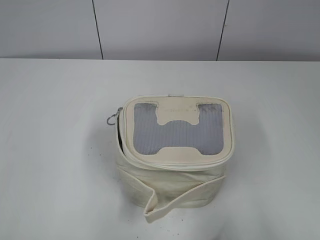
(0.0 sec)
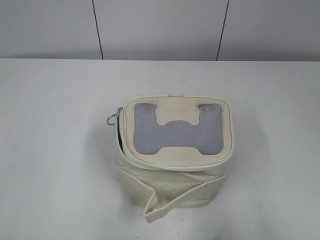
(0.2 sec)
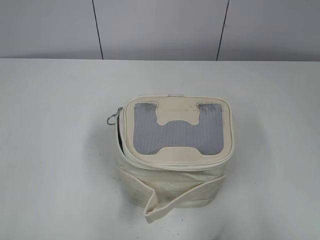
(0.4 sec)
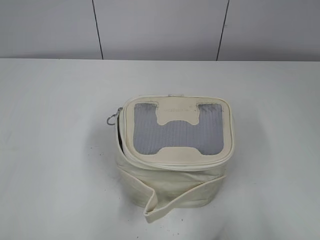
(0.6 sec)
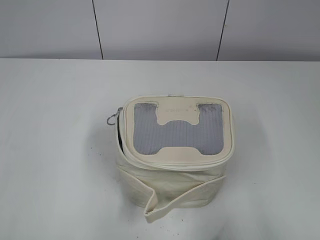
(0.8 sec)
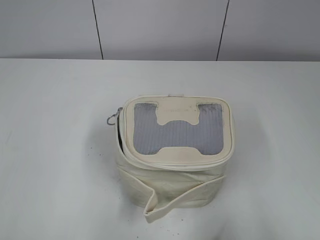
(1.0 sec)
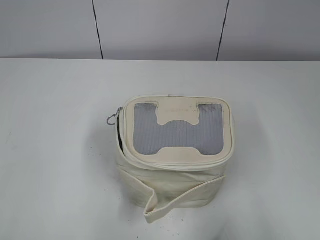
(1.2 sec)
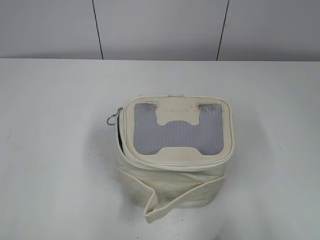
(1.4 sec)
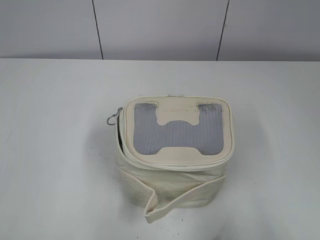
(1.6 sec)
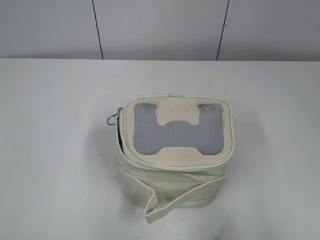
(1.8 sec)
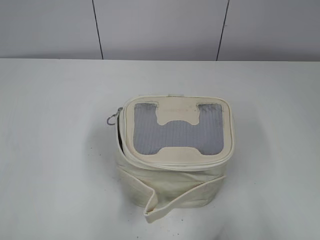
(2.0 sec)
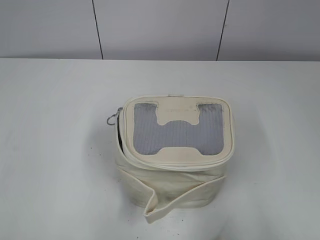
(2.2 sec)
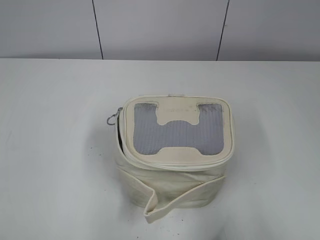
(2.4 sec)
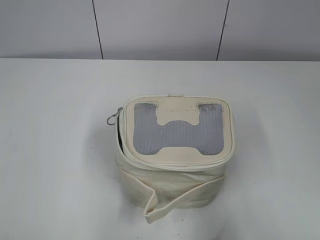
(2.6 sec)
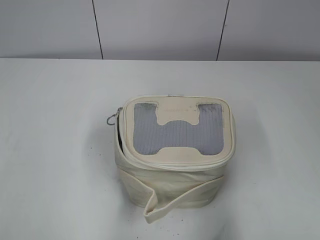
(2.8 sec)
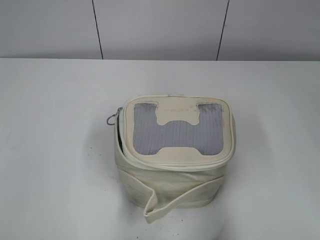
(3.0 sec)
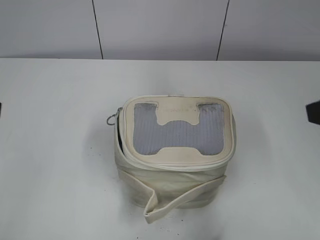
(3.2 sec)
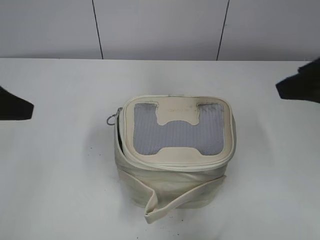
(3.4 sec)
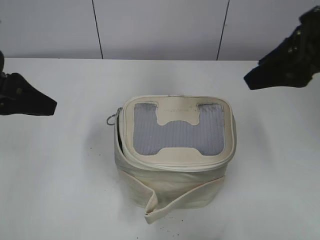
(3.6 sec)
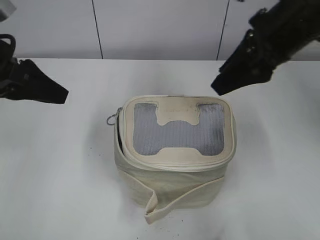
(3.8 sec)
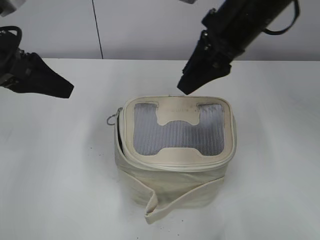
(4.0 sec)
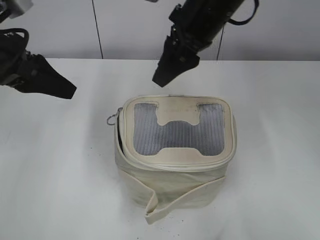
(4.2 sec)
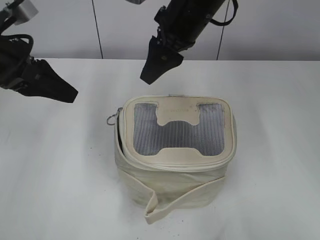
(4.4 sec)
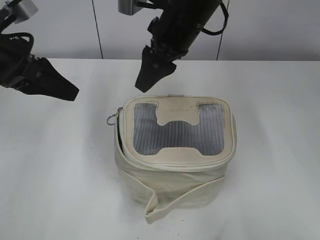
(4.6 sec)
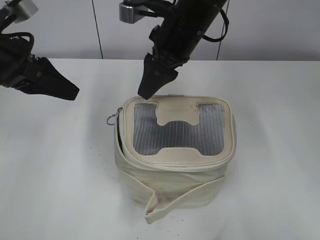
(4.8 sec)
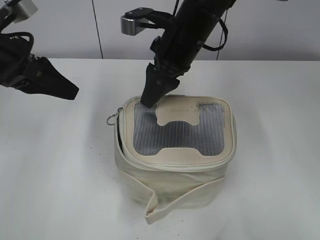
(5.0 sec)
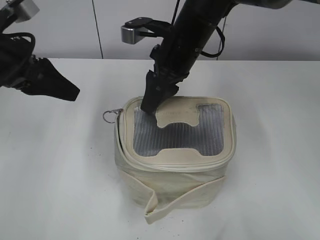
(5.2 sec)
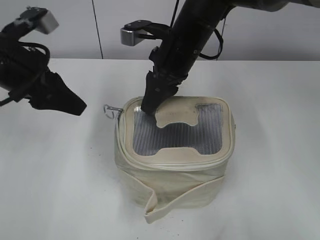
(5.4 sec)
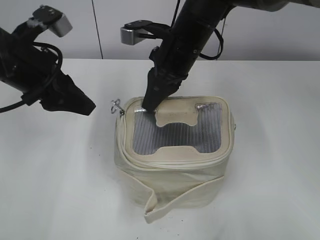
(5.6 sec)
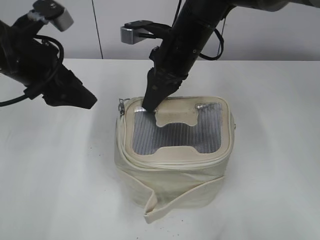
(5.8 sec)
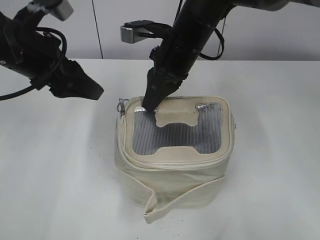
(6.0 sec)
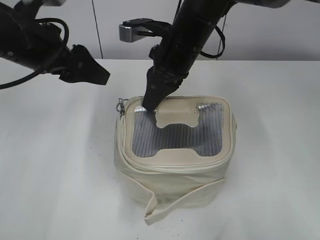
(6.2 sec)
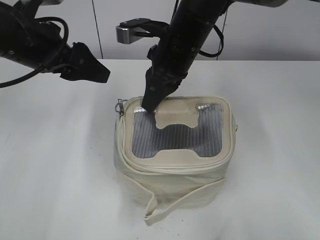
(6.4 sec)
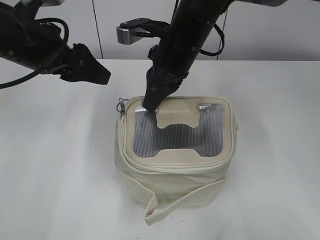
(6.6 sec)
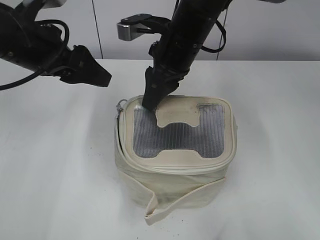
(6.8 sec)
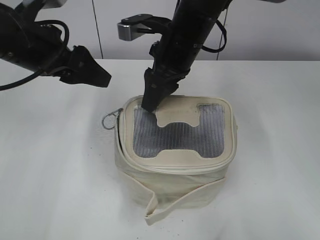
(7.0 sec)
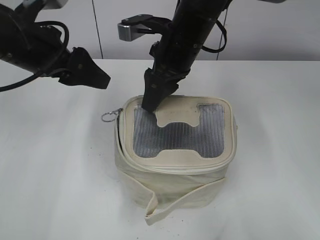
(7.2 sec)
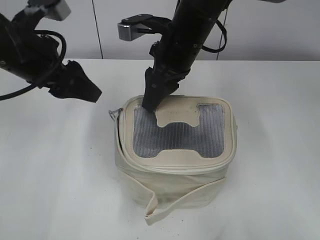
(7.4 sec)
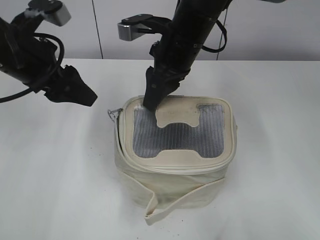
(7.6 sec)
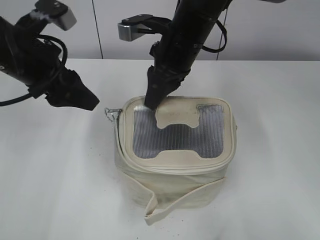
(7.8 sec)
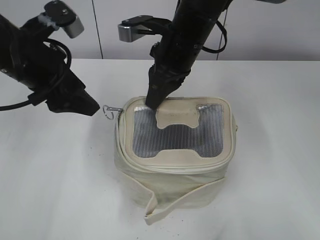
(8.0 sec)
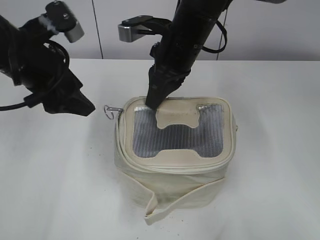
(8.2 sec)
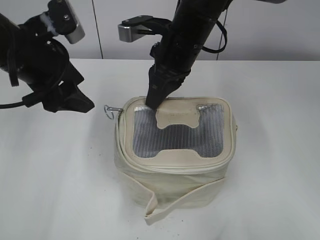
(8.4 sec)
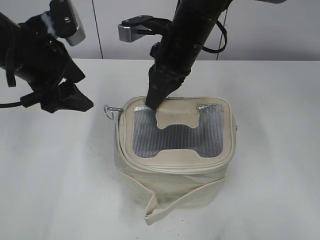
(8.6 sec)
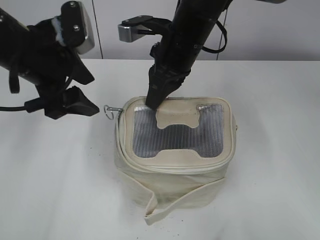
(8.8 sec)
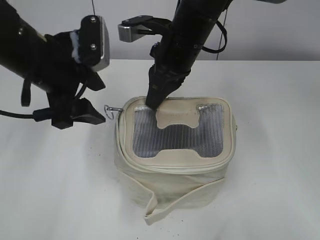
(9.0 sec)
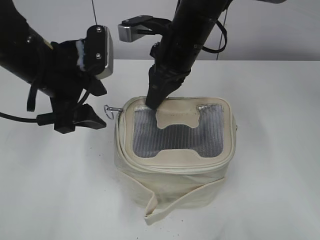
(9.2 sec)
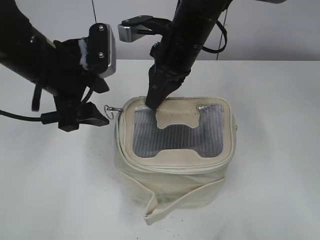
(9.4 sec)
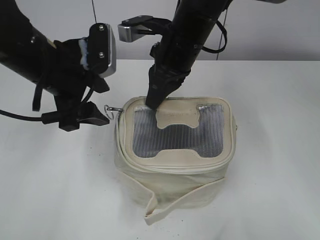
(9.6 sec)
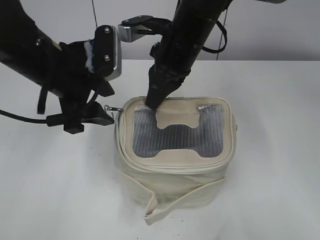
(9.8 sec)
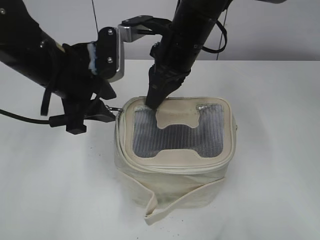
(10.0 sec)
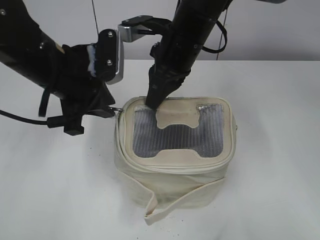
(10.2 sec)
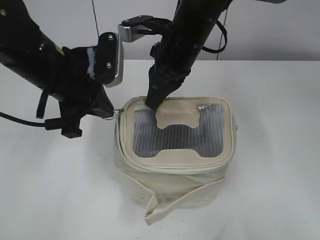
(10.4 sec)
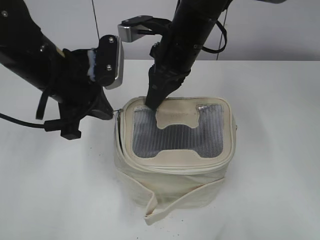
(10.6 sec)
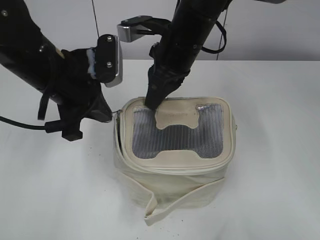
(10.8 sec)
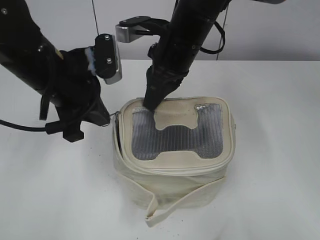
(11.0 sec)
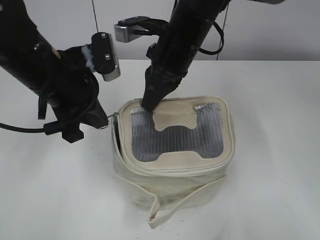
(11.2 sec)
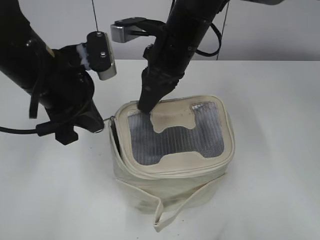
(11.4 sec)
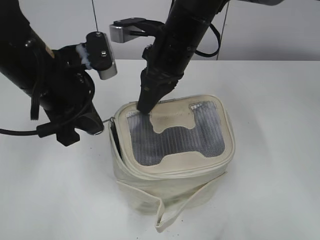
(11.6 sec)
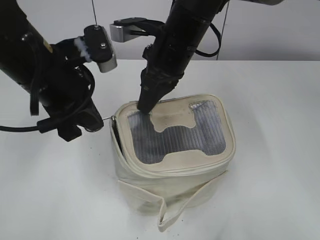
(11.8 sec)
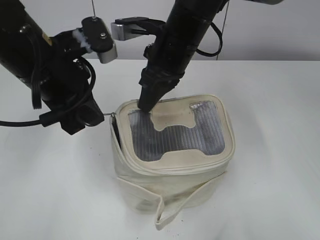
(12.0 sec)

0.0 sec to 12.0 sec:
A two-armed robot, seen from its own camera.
1.6 sec to 3.0 sec: The right gripper goes approximately 10 cm forward.
3.0 sec to 4.4 sec: The right gripper is displaced forward and to the left by approximately 35 cm. The left gripper heads forward, covering approximately 20 cm.
4.4 sec to 6.0 sec: The left gripper opens its fingers. The right gripper is displaced downward by about 5 cm, and closes.
6.0 sec to 7.6 sec: The right gripper opens.
7.6 sec to 9.0 sec: The right gripper closes up.
9.0 sec to 10.4 sec: The left gripper closes up.

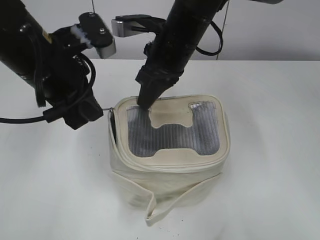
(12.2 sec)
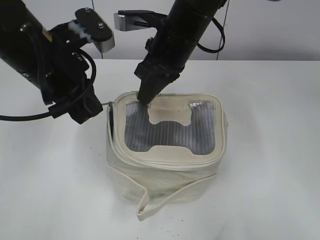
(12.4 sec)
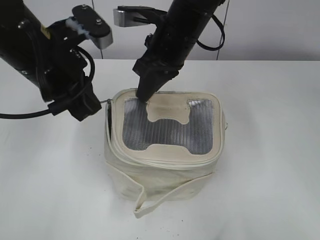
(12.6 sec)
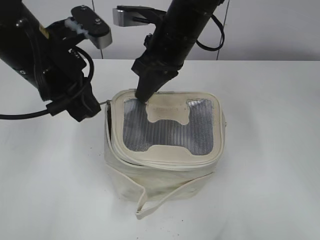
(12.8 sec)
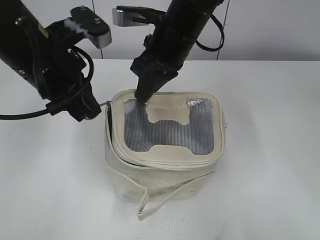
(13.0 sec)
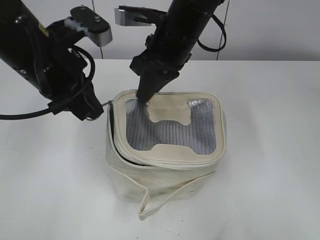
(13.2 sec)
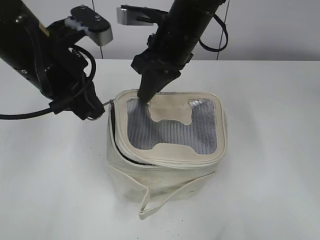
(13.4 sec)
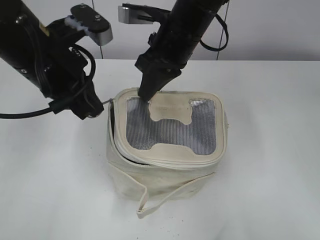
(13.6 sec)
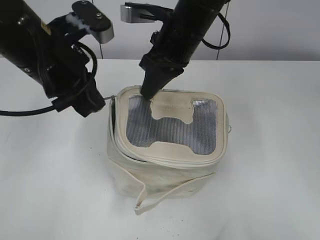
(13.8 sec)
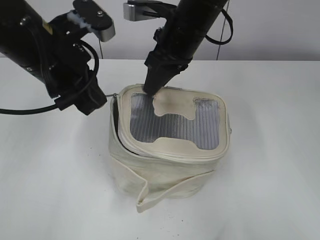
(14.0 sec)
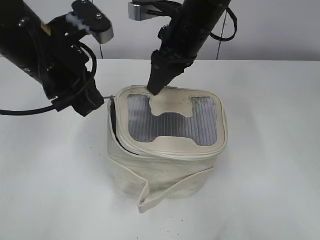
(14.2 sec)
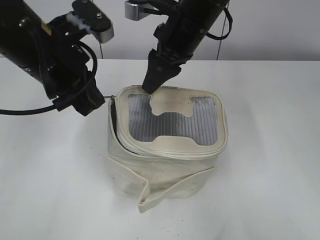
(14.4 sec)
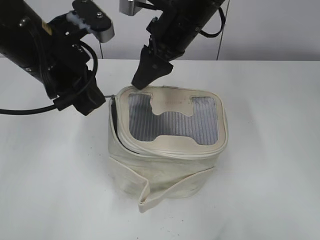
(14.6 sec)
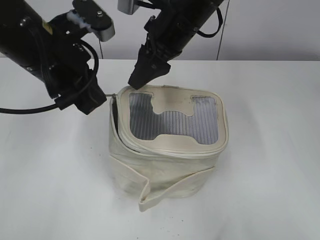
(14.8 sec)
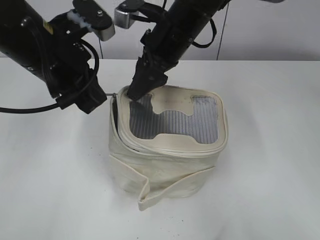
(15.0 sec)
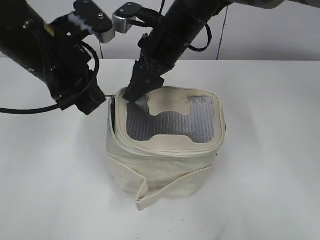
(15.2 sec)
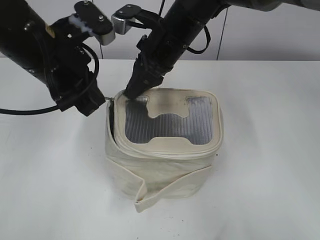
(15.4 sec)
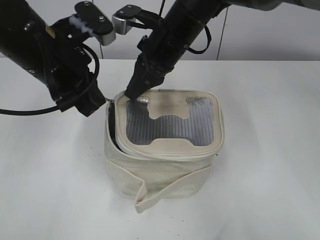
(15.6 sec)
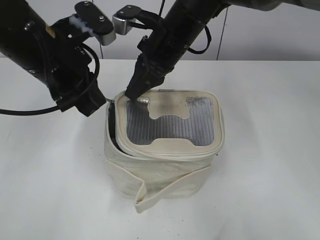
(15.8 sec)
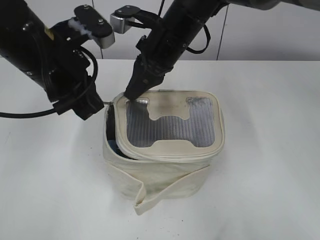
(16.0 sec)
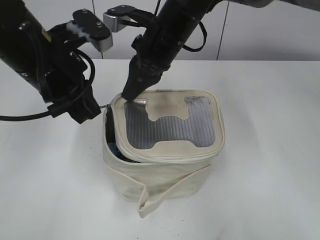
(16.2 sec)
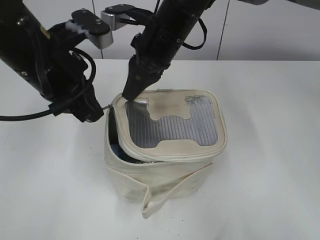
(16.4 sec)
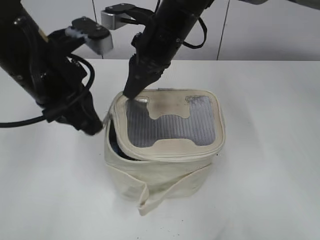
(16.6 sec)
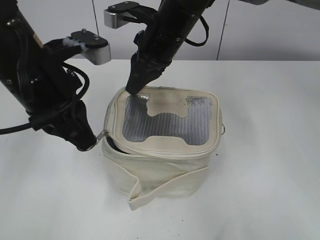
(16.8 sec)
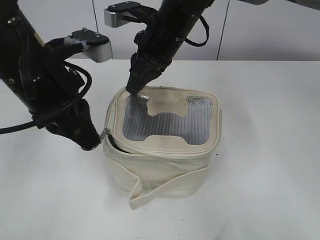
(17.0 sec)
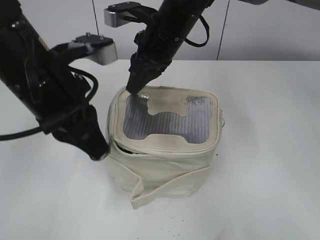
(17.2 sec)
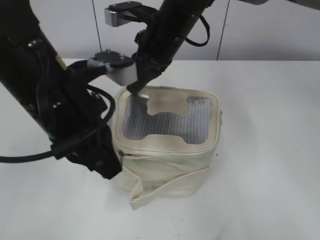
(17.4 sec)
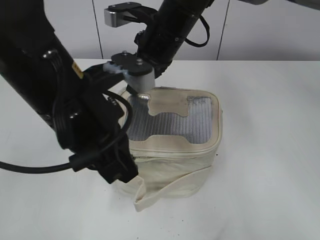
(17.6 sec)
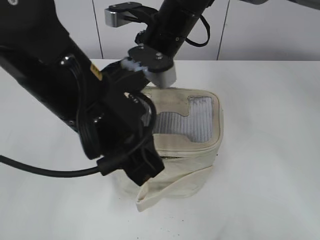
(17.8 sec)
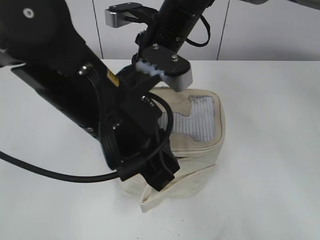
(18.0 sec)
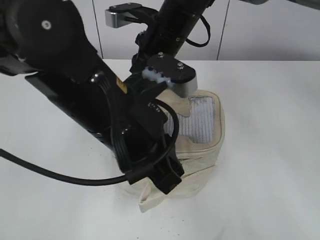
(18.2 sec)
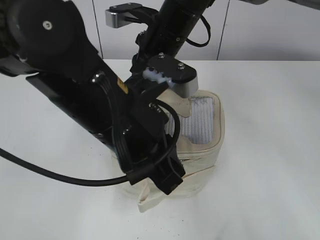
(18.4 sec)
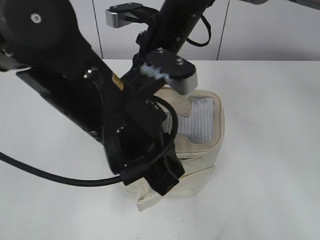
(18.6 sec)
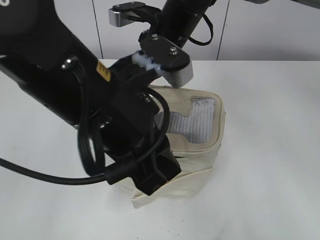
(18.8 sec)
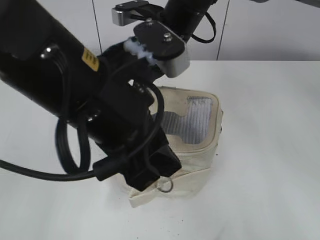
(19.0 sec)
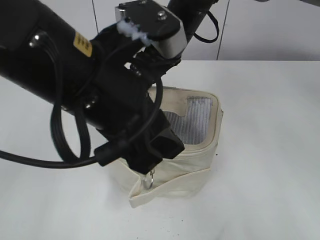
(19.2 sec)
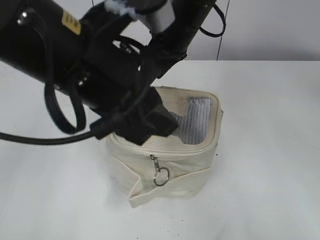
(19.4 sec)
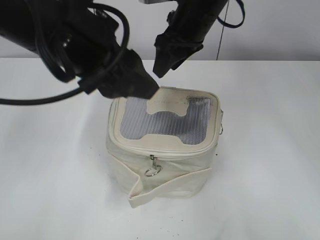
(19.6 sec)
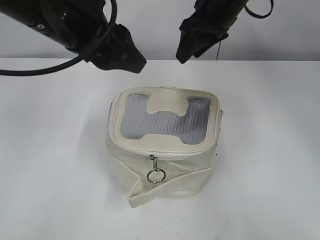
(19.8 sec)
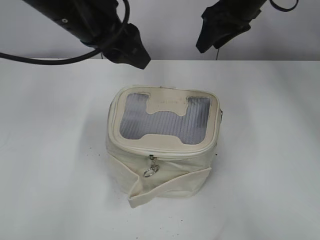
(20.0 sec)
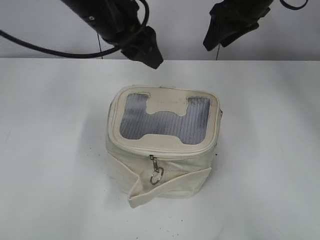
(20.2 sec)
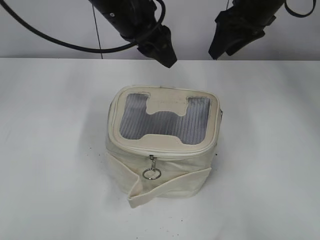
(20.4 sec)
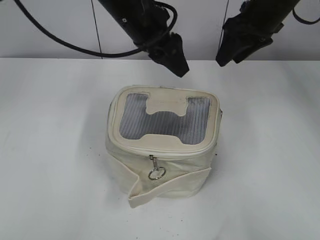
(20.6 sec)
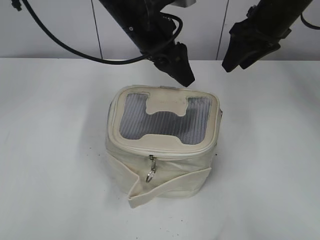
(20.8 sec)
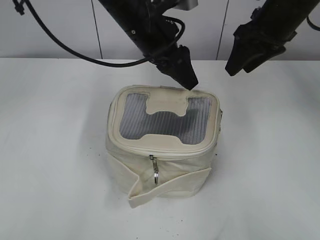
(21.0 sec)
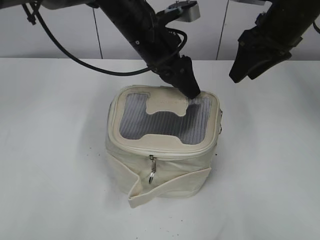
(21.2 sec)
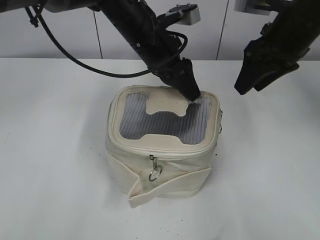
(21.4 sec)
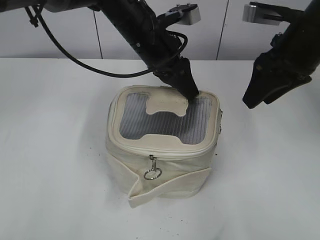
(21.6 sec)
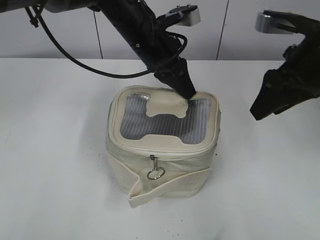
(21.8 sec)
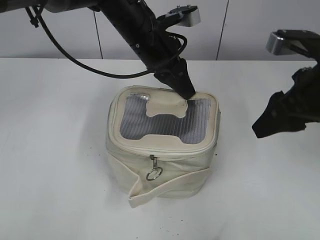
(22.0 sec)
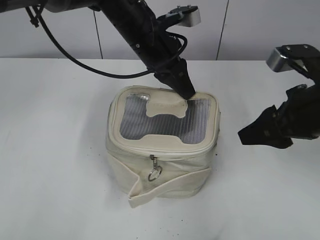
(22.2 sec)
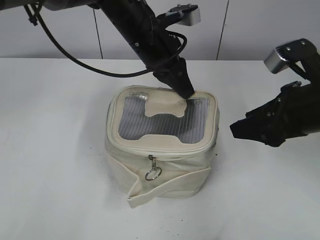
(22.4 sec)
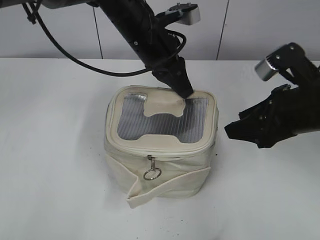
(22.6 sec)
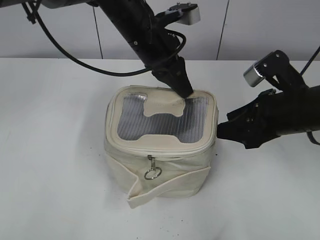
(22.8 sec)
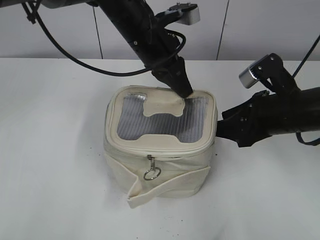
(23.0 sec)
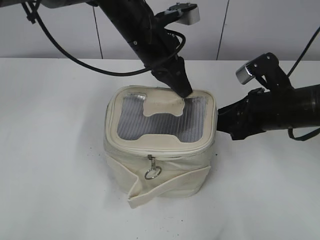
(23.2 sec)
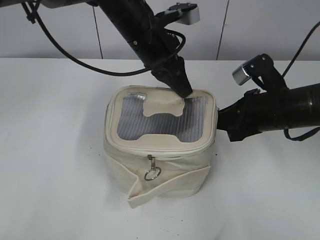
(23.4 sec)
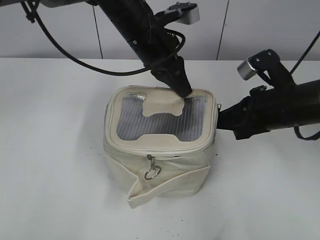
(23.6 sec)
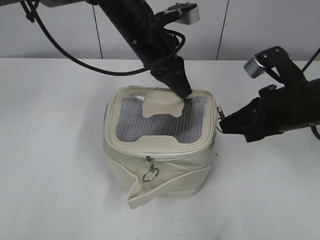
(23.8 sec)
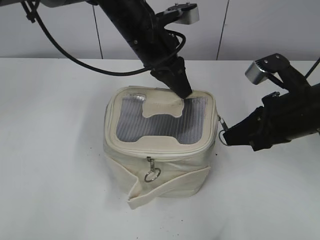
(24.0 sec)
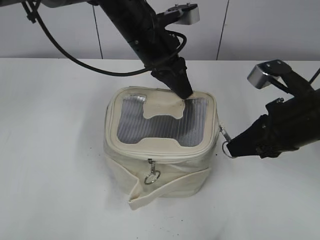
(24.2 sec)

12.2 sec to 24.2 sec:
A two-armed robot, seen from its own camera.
Step, 12.2 sec to 18.8 sec: Zip up the bag with your left hand.
Step, 19.2 sec to 19.4 sec: Hold the bag with your right hand.
12.2 sec to 13.8 sec: There are only small adjustments of the grippers.
13.8 sec to 15.2 sec: The right gripper opens up.
15.2 sec to 16.6 sec: The right gripper closes its fingers.
16.6 sec to 18.2 sec: The left gripper is displaced to the right and backward by approximately 10 cm.
18.2 sec to 19.8 sec: The left gripper heads upward, forward and to the left, covering roughly 10 cm, and opens its fingers, while the right gripper is displaced to the right by about 10 cm, and opens.
19.8 sec to 21.2 sec: The left gripper heads forward, to the right and downward, covering some 20 cm. The right gripper goes about 10 cm to the right.
21.2 sec to 22.6 sec: The right gripper shifts roughly 15 cm backward and downward. The left gripper closes its fingers.
22.6 sec to 24.2 sec: The right gripper closes its fingers.
